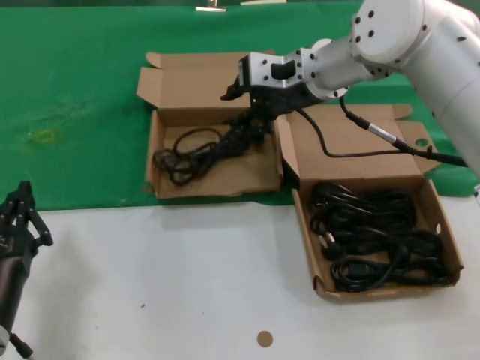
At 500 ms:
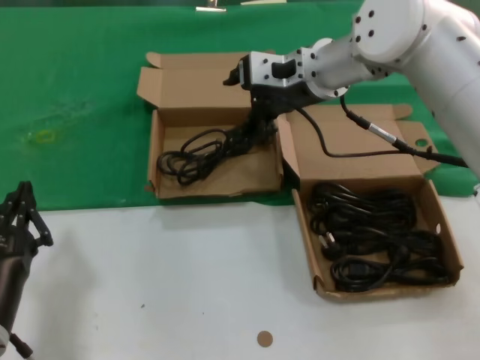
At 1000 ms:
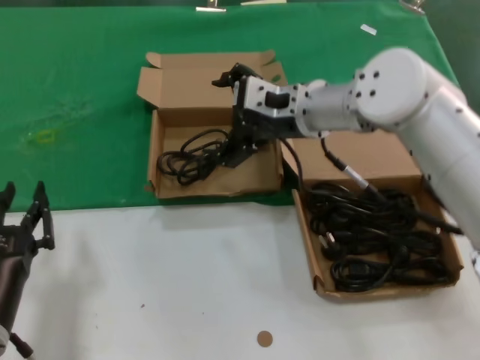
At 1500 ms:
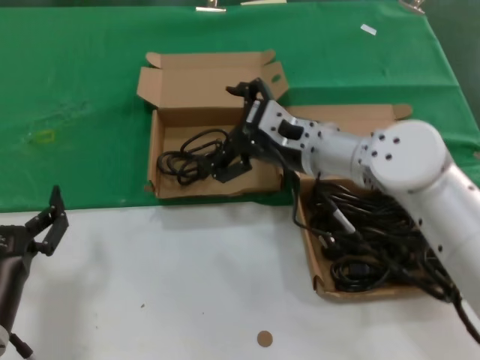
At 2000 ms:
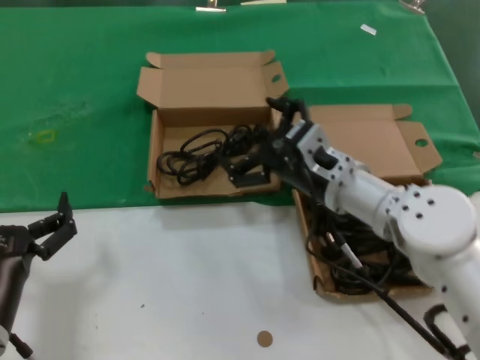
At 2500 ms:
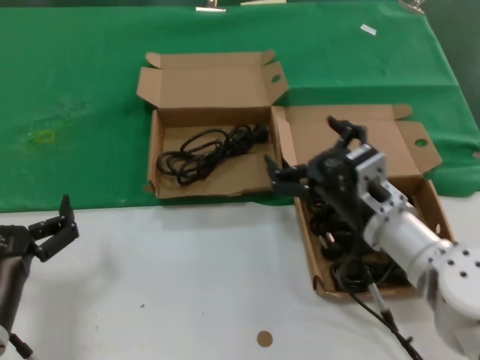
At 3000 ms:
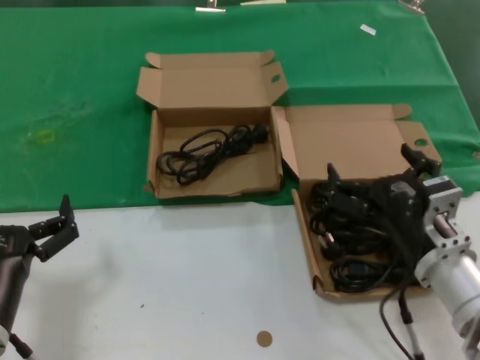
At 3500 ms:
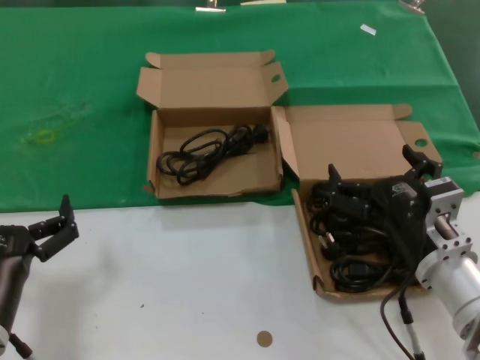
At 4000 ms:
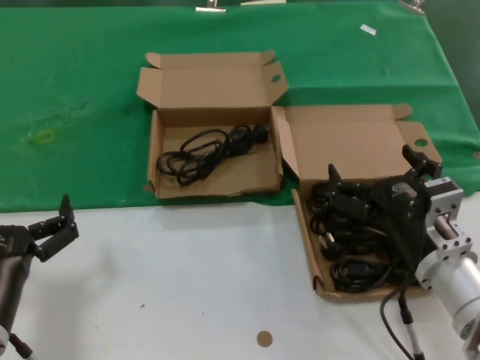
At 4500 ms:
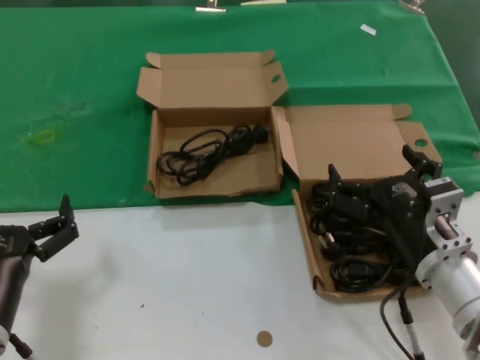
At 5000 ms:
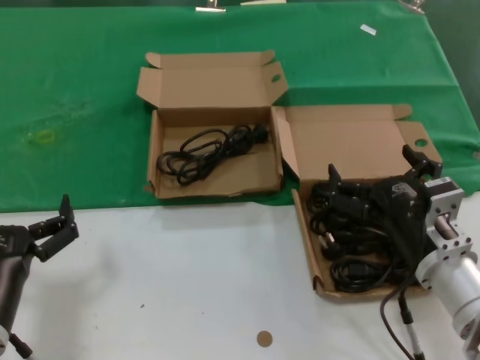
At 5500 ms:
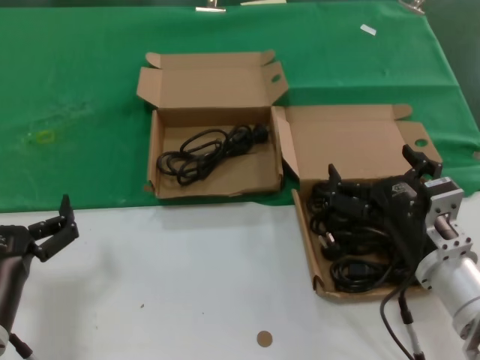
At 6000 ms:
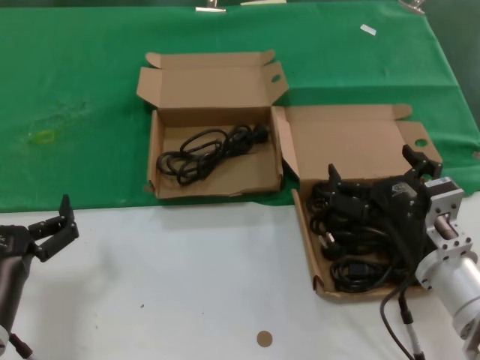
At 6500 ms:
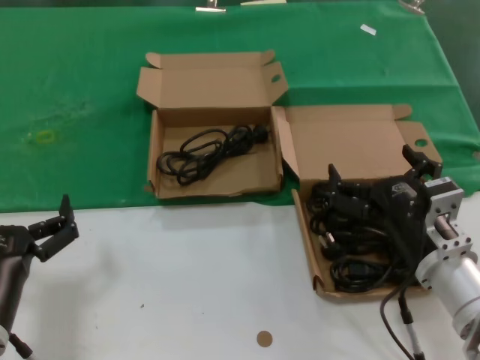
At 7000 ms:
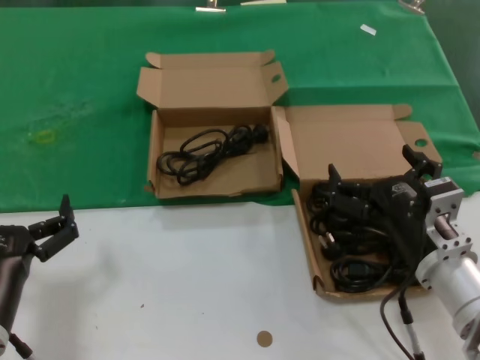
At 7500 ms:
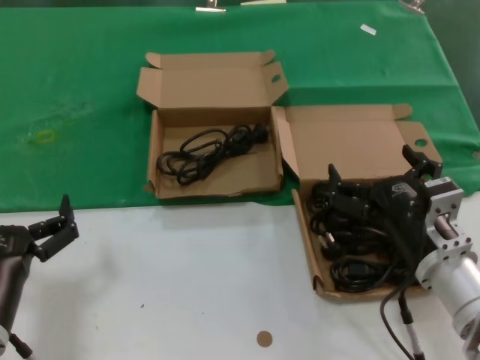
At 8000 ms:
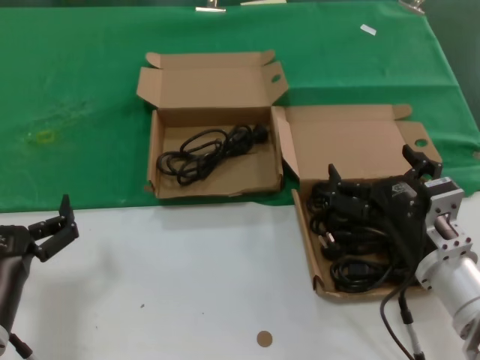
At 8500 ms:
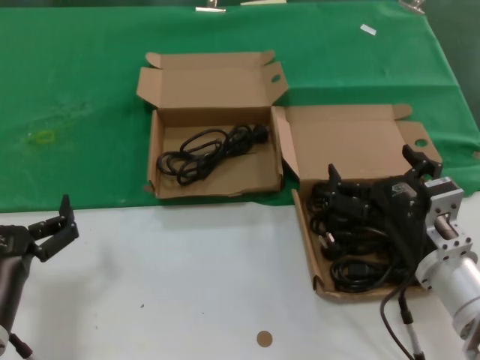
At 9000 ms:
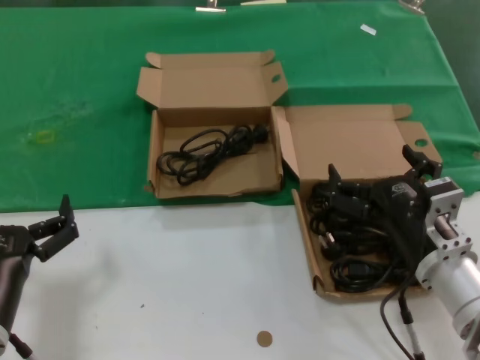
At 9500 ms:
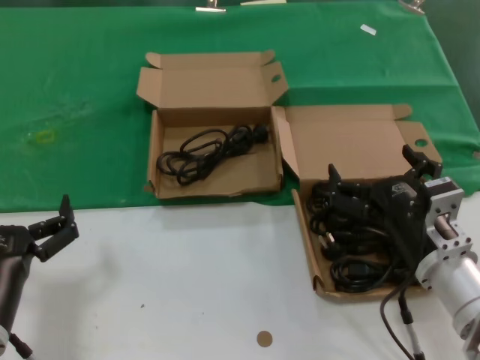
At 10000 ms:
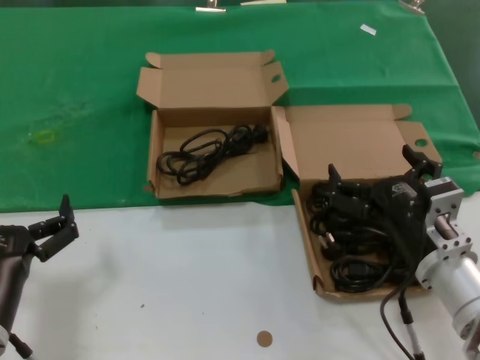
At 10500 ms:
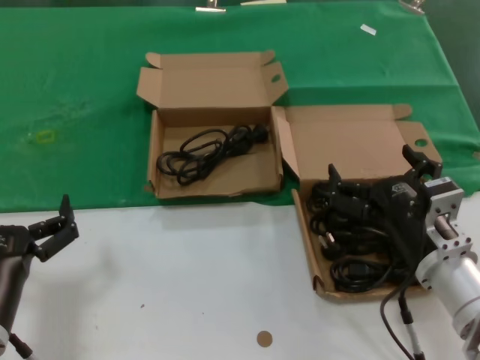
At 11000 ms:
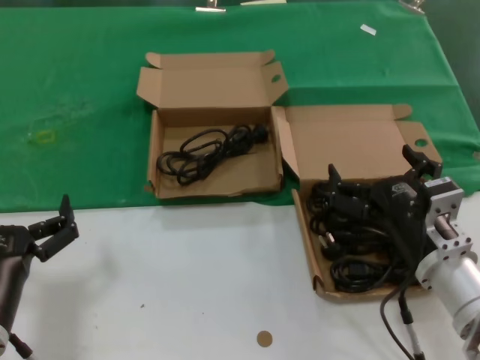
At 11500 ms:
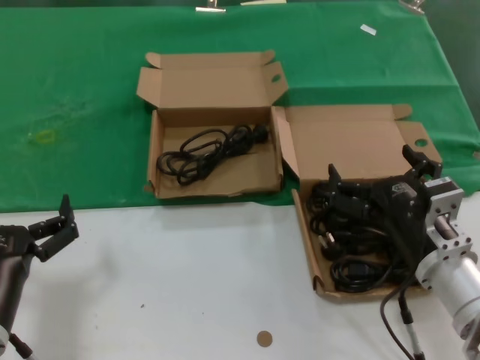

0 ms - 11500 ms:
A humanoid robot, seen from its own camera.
Task of the whole recording: take the parts from the box containing them and put them into an empty box.
0 ms - 2000 ms: The right hand travels downward and backward by roughly 20 cm.
2000 ms - 4000 ms: The right hand is displaced backward, to the right and downward by roughly 15 cm.
4000 ms - 11500 ms: The two hands keep their place.
